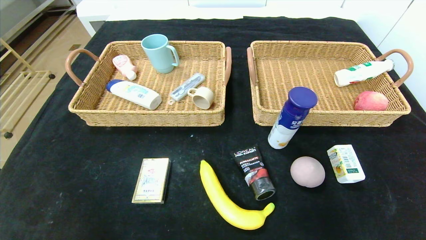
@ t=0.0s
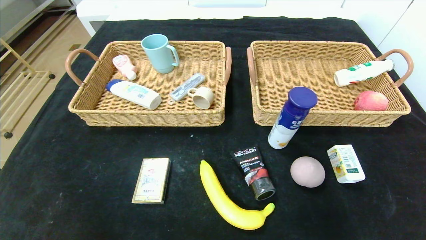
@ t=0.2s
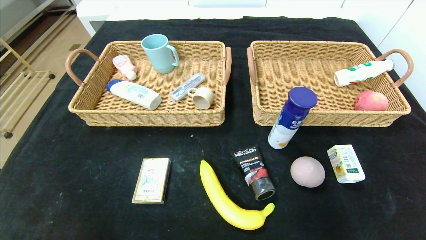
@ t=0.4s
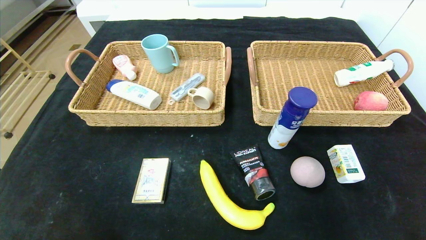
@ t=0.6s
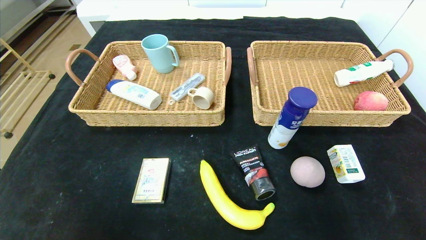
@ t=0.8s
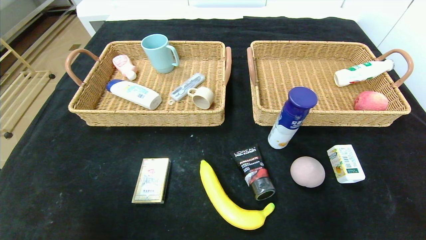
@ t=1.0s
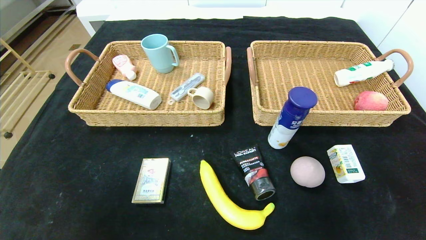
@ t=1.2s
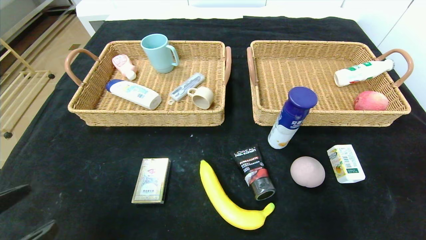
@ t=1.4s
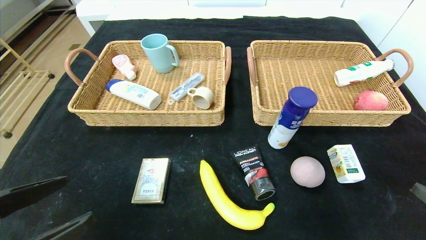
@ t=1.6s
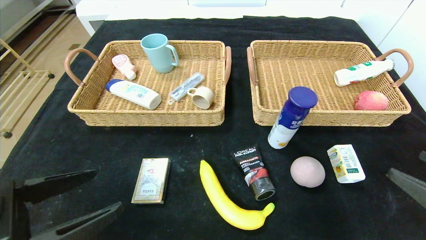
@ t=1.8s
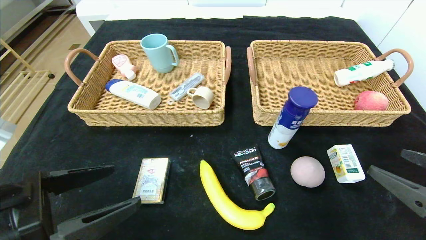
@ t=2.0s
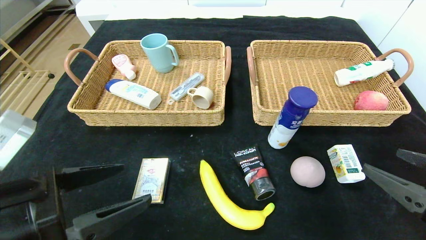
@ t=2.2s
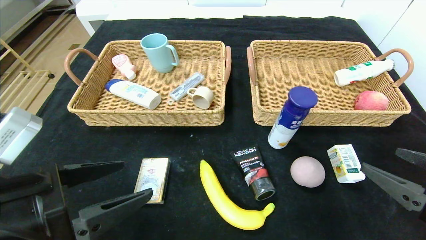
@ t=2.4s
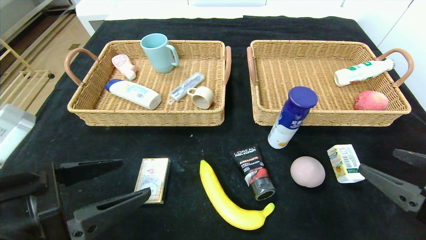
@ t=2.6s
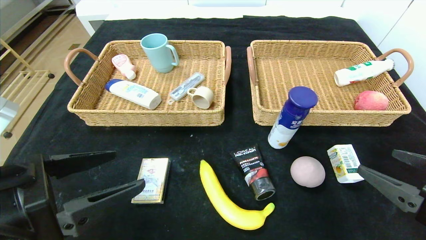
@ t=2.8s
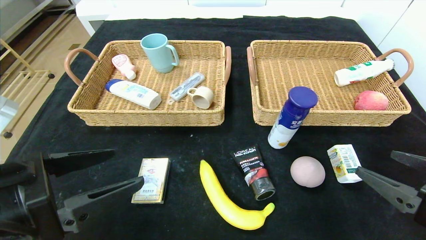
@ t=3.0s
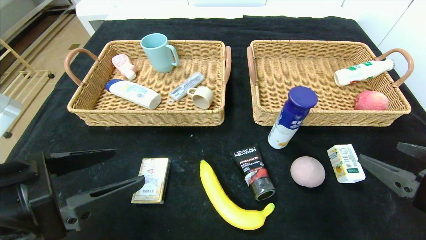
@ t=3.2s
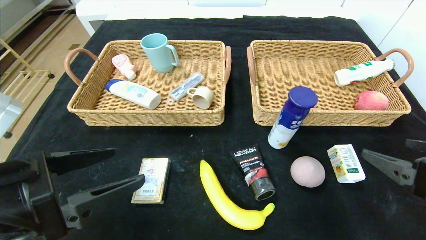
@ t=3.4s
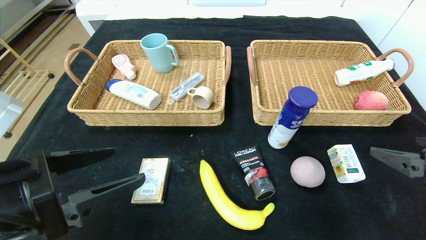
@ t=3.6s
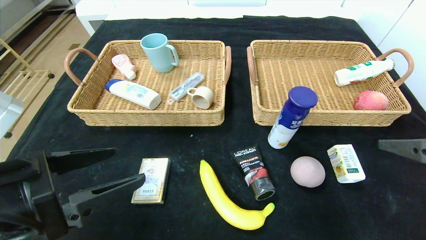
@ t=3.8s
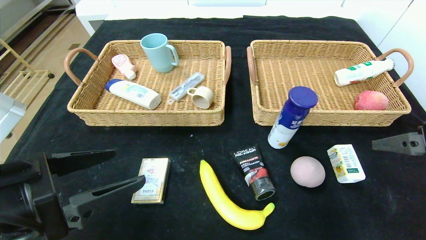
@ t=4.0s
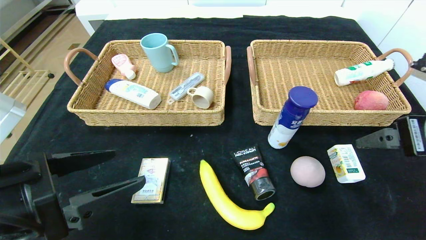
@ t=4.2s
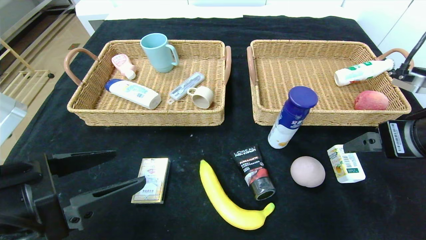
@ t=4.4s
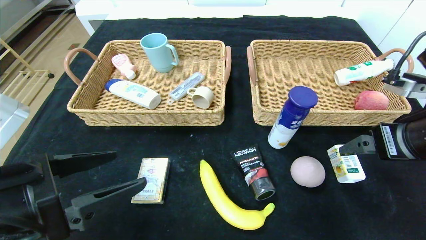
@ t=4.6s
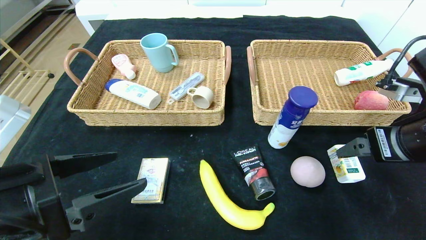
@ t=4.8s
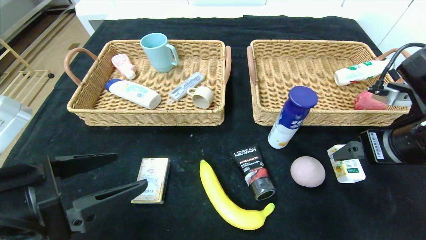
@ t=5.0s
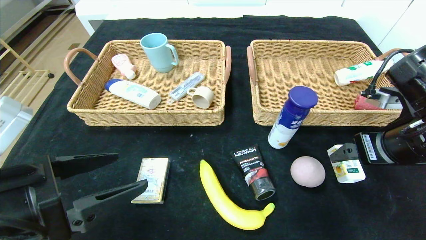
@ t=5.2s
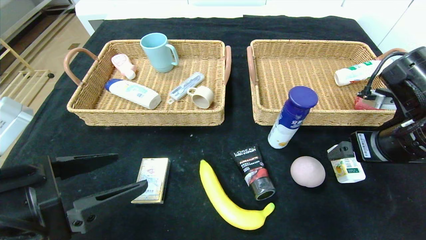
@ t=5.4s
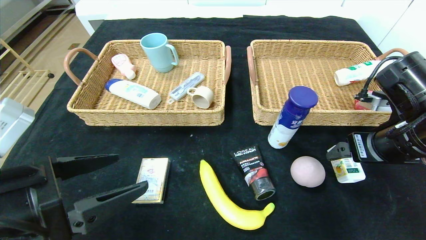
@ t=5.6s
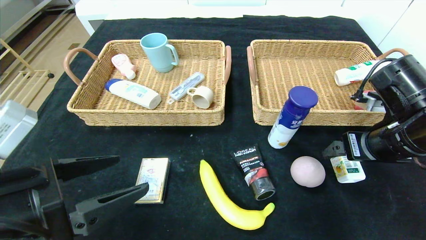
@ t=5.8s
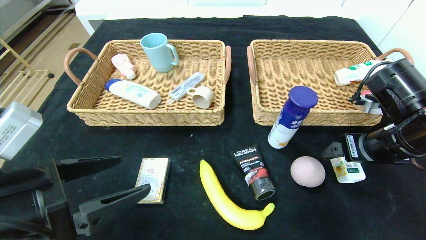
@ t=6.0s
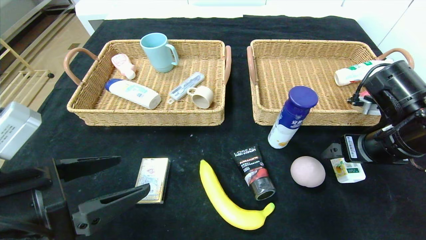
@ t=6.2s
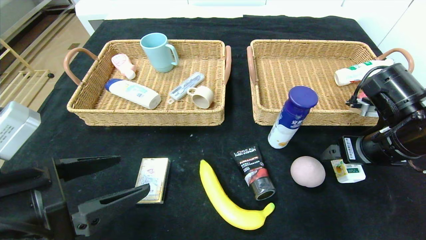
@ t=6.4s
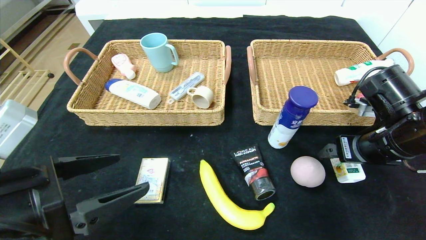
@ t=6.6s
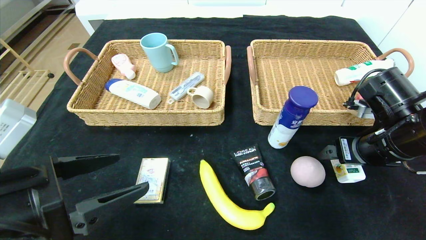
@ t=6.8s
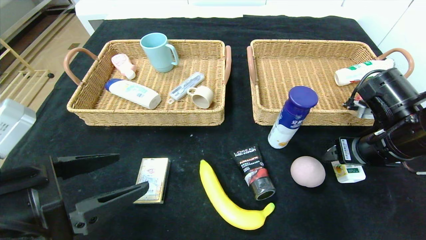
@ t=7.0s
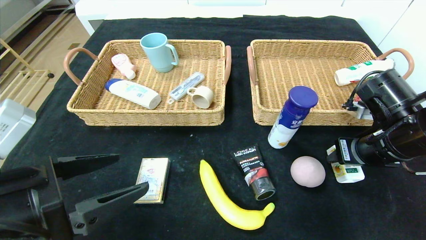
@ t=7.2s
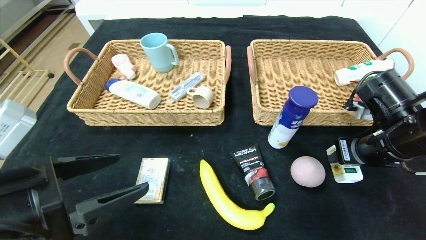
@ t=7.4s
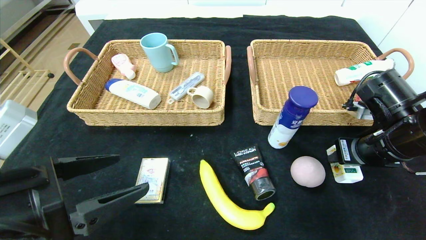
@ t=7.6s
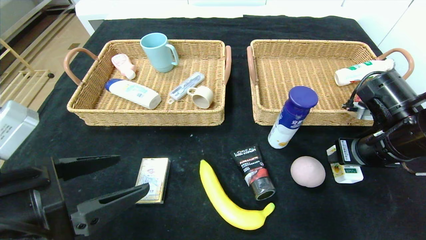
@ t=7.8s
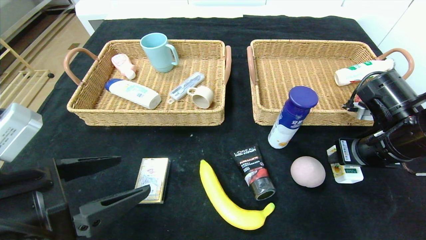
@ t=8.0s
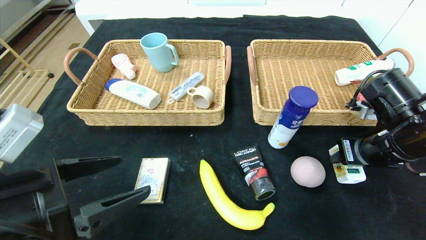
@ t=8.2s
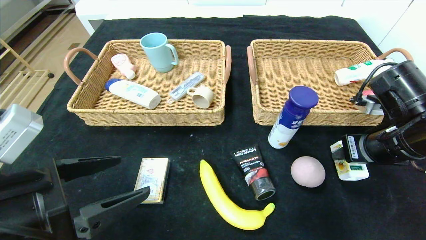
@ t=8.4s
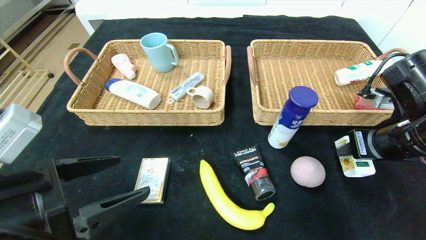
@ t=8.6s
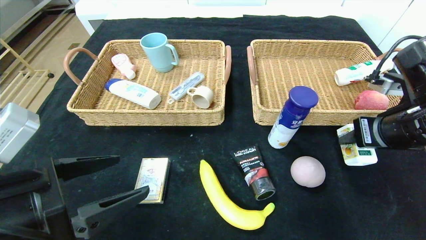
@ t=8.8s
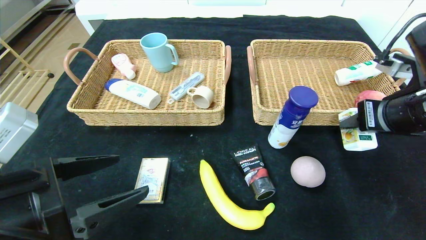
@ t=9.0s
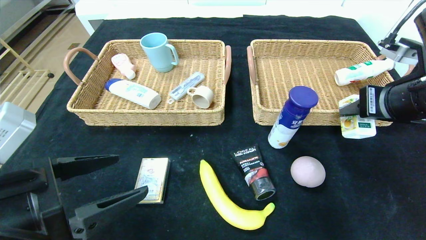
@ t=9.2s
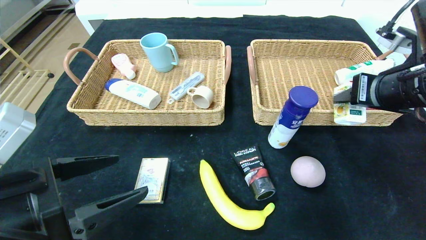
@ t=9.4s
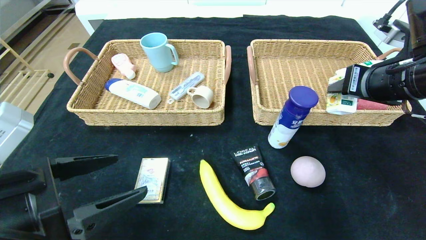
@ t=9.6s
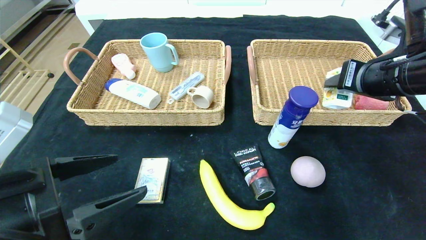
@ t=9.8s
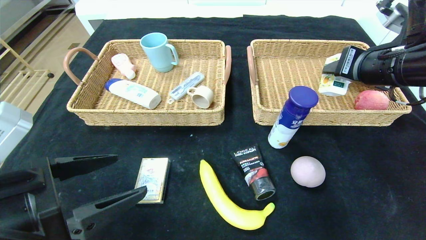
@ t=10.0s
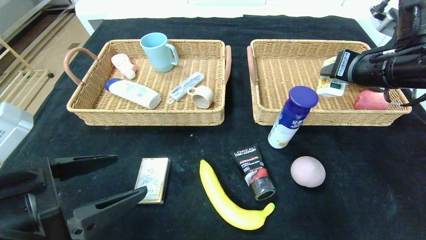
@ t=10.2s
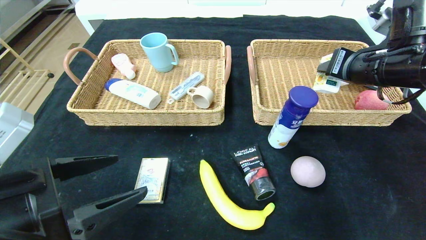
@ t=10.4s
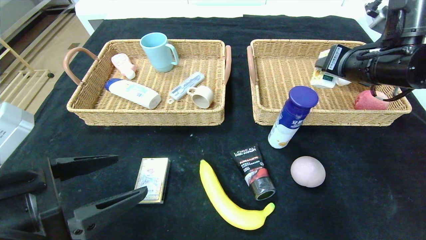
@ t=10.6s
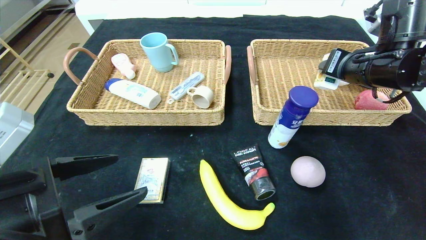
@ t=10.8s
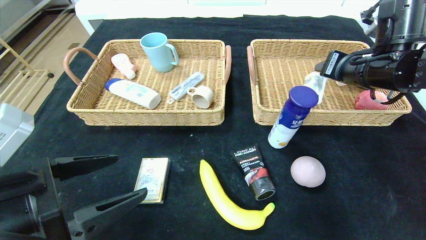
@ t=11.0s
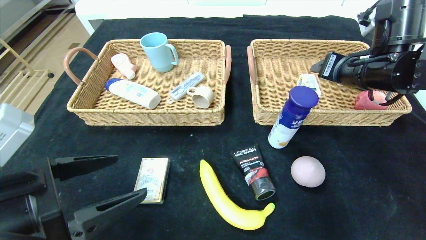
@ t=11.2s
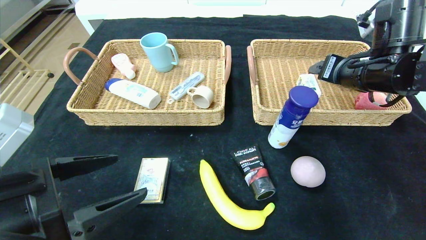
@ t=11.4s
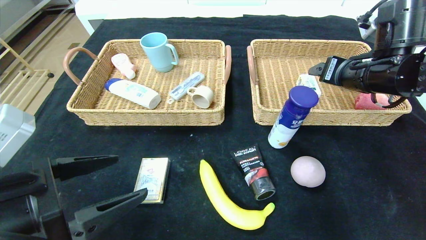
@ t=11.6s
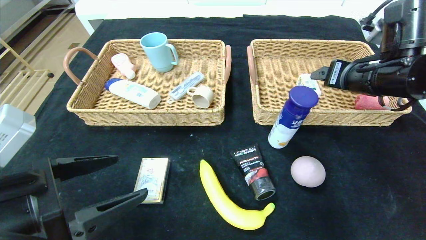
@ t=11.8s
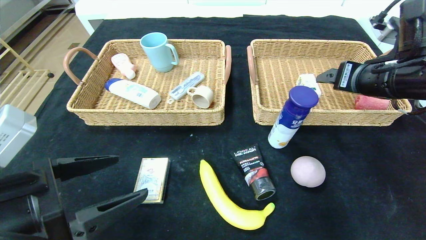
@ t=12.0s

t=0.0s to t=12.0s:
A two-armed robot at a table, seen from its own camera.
t=0.0s to t=1.6s: Both grippers move upward and forward, roughly 15 cm.
t=1.6s to t=3.0s: The left gripper shifts roughly 5 cm forward. Meanwhile the right gripper moves about 5 cm.
t=3.0s to t=4.4s: The right gripper is displaced upward and forward by approximately 10 cm.
t=4.4s to t=6.0s: The right gripper is displaced forward and downward by some 10 cm.
t=6.0s to t=7.6s: The right gripper closes up.
t=7.6s to t=9.0s: The right gripper travels upward by some 5 cm.
t=9.0s to t=10.4s: The right gripper travels forward by about 5 cm.
t=10.4s to t=12.0s: The right gripper opens.

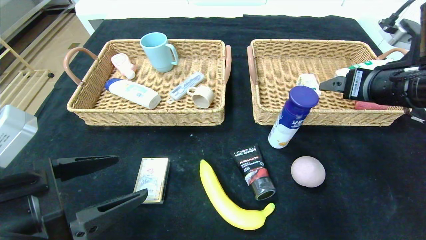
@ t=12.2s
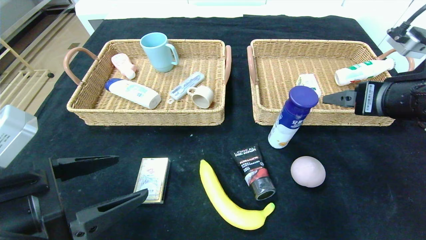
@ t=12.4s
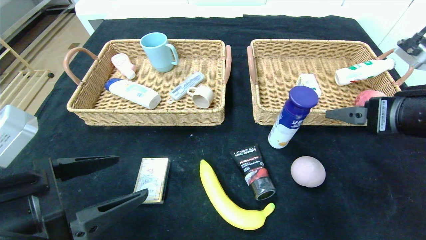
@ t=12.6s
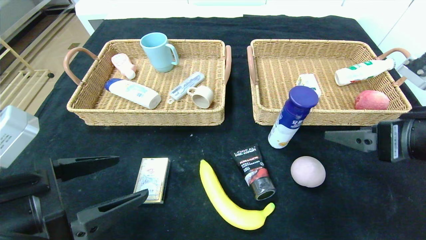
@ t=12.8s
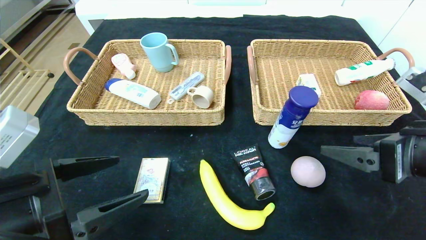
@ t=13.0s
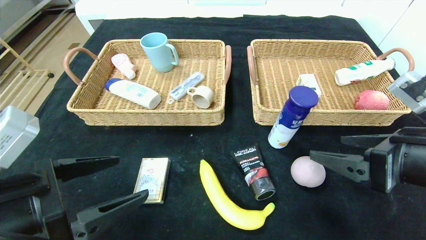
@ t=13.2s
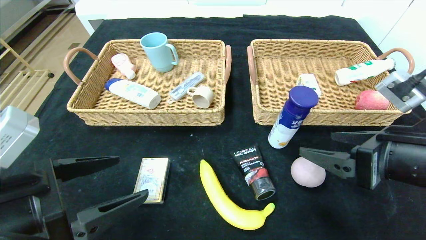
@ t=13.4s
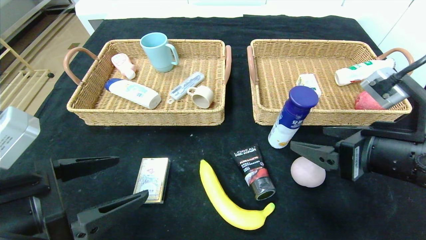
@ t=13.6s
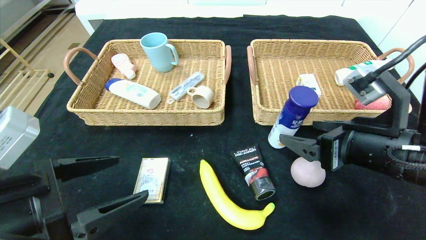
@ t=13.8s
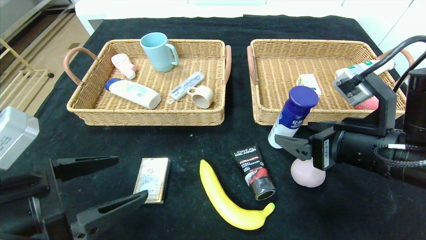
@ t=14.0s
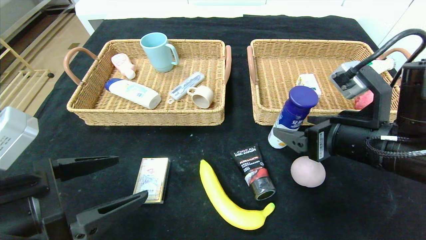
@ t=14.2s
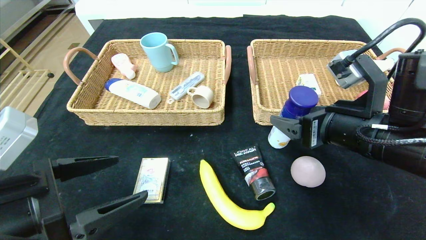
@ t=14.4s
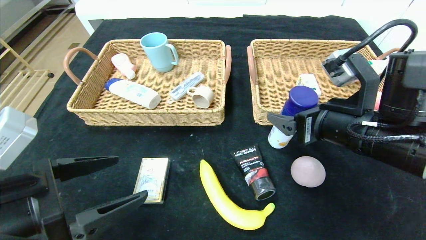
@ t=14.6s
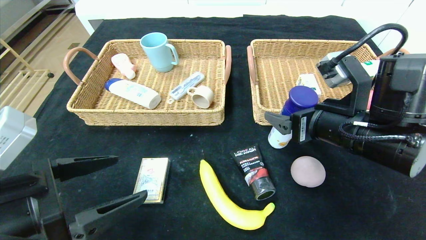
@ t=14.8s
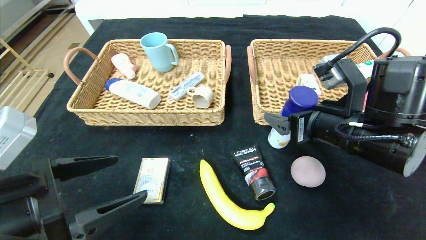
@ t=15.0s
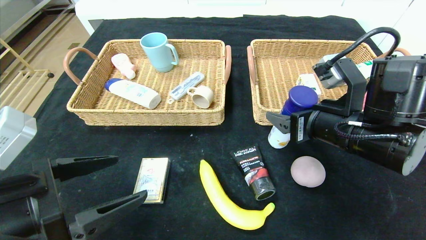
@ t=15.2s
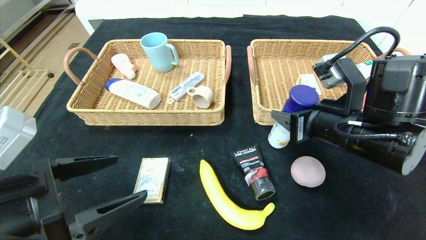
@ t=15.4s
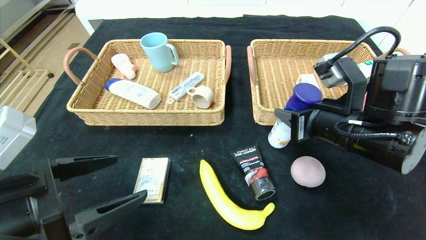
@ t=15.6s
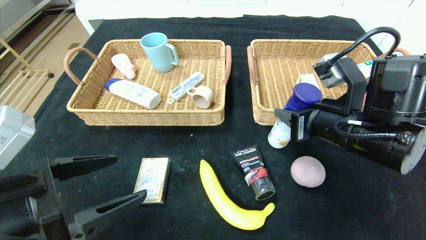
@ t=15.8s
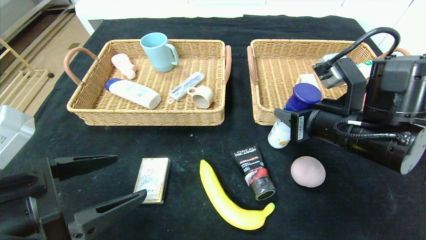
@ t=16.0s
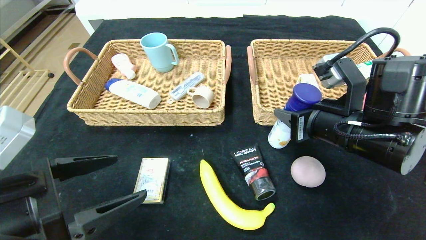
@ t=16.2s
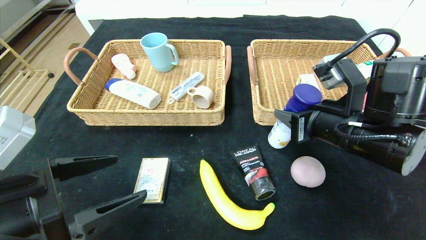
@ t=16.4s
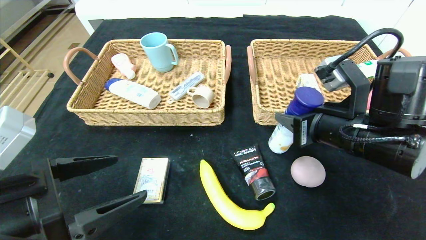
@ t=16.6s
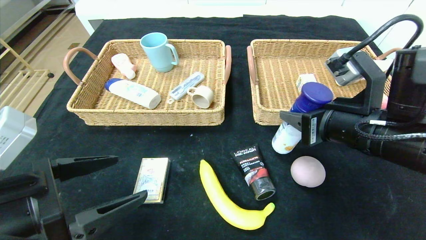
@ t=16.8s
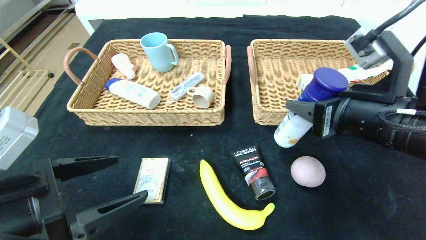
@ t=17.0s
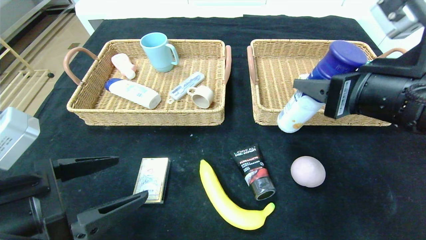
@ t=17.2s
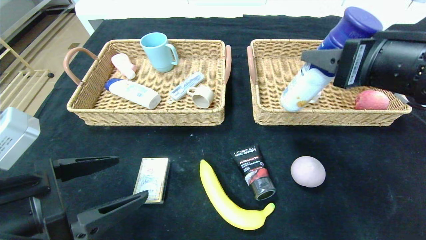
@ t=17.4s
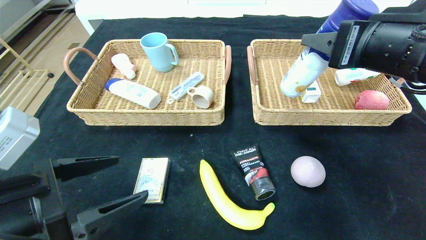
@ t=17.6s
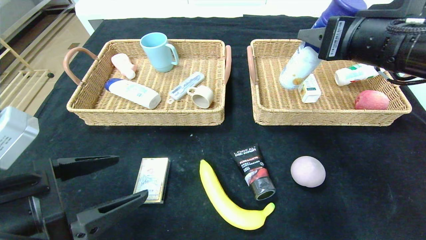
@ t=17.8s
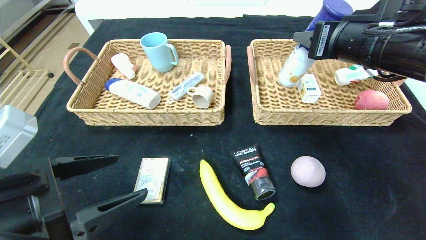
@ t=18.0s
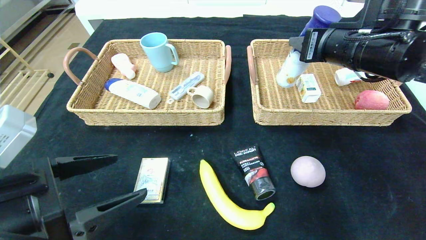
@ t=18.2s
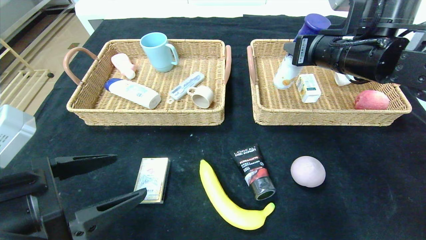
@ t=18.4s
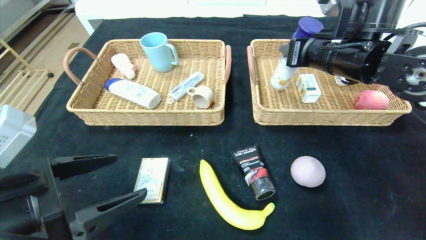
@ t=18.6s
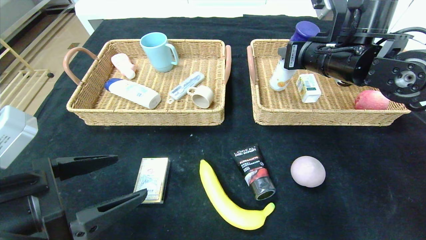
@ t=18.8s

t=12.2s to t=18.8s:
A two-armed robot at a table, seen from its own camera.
t=12.2s to t=13.8s: The right gripper is displaced downward and backward by some 10 cm.
t=13.8s to t=15.4s: The right gripper moves roughly 5 cm, and closes its fingers.
t=15.4s to t=17.2s: The right gripper goes some 5 cm upward.
t=17.2s to t=18.8s: The right gripper travels forward by roughly 15 cm.
